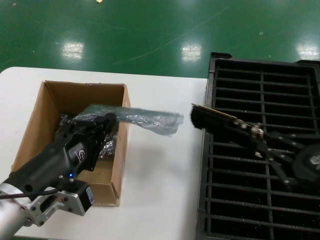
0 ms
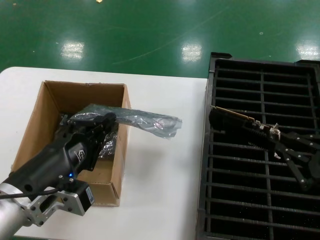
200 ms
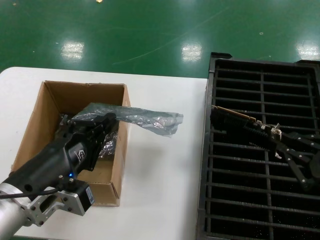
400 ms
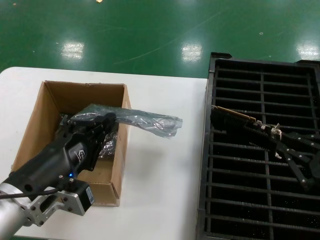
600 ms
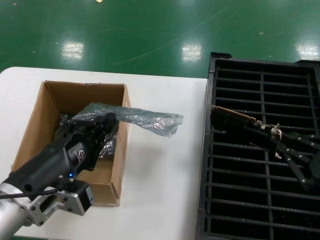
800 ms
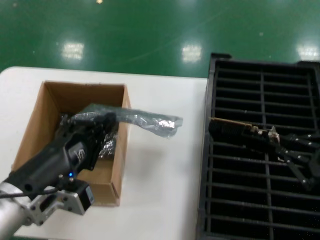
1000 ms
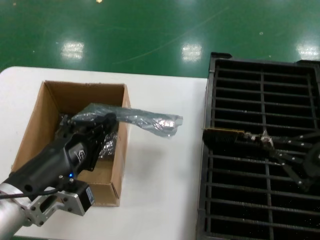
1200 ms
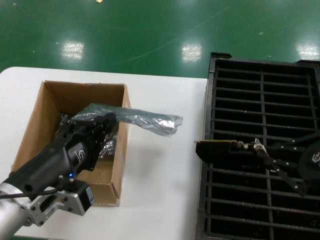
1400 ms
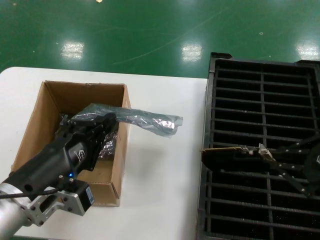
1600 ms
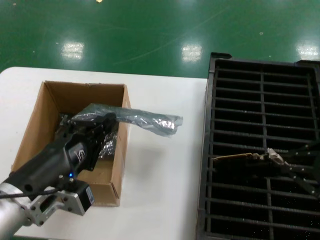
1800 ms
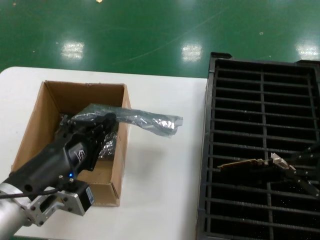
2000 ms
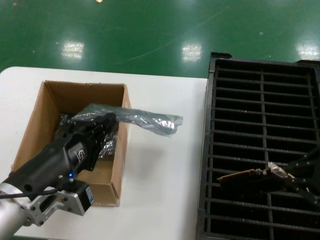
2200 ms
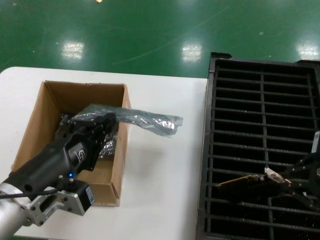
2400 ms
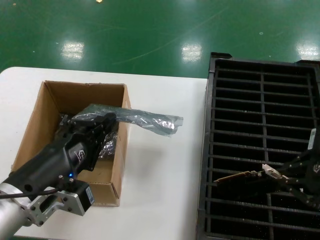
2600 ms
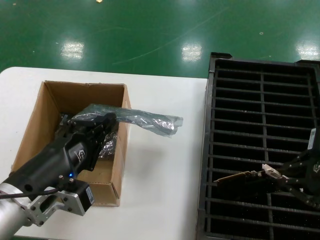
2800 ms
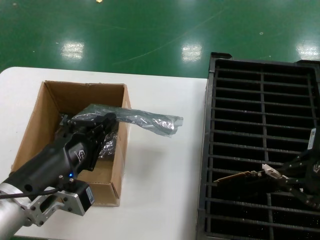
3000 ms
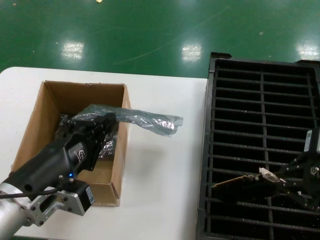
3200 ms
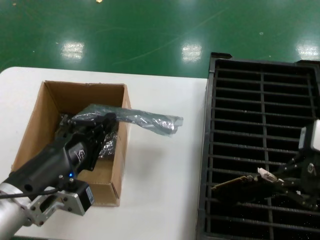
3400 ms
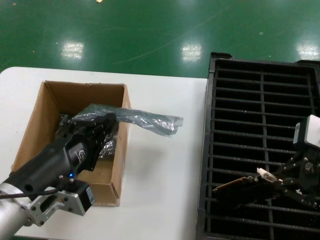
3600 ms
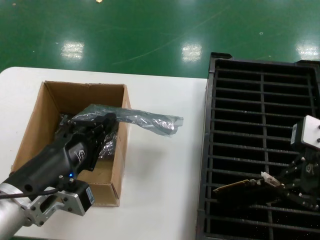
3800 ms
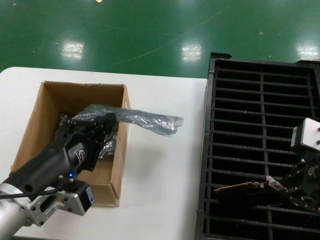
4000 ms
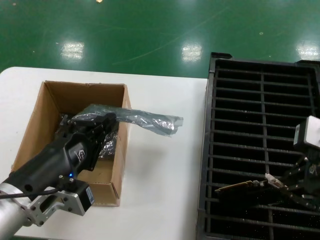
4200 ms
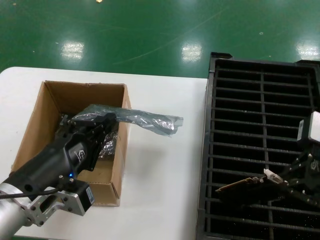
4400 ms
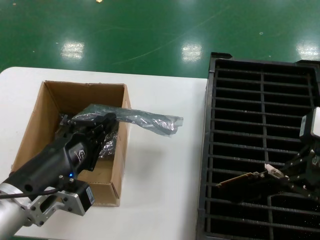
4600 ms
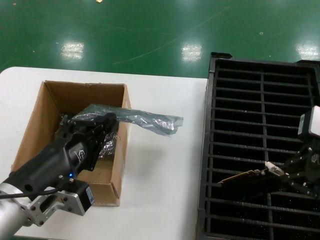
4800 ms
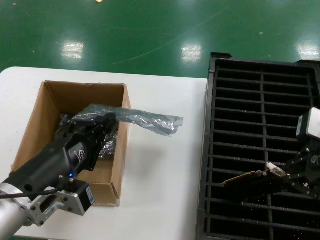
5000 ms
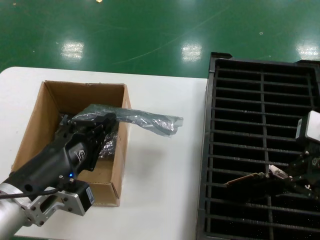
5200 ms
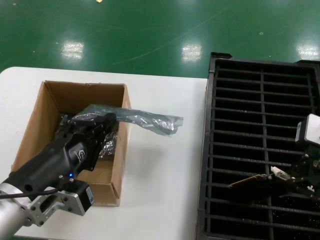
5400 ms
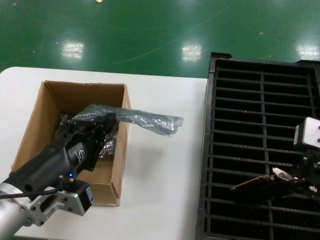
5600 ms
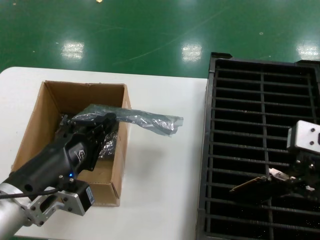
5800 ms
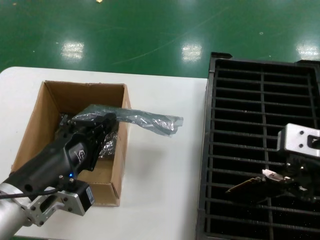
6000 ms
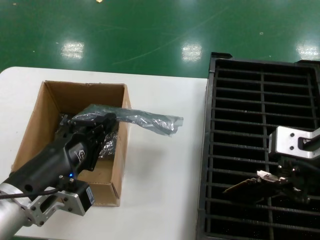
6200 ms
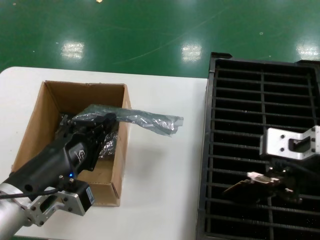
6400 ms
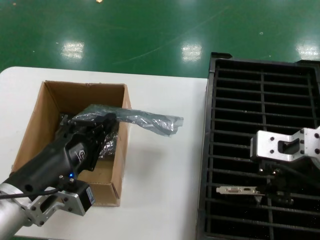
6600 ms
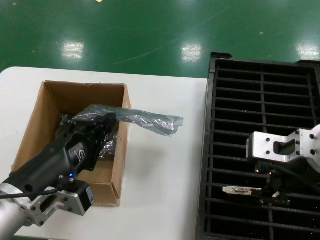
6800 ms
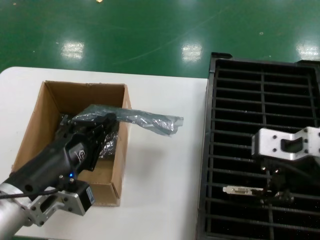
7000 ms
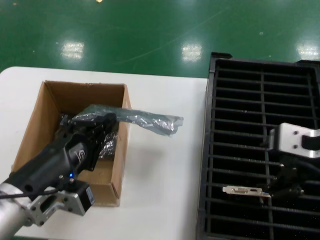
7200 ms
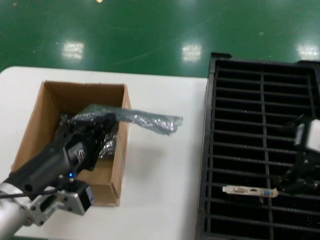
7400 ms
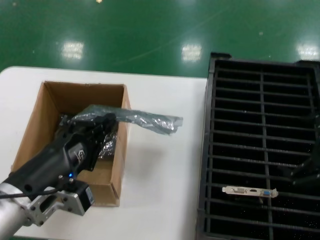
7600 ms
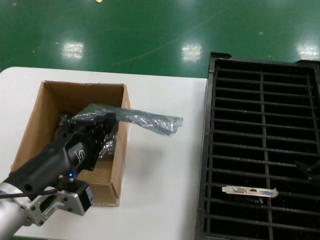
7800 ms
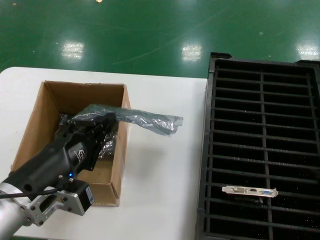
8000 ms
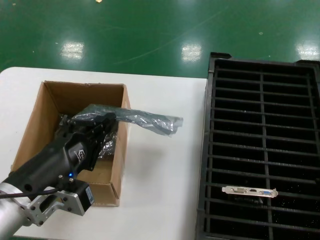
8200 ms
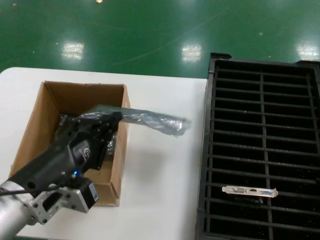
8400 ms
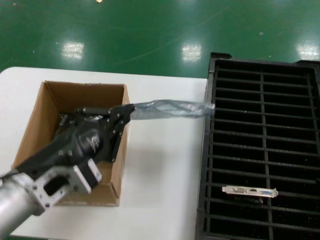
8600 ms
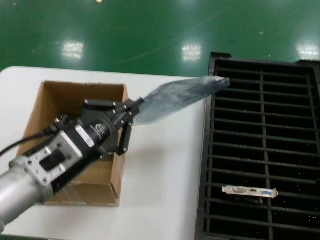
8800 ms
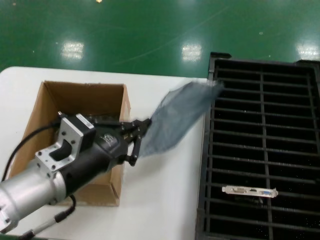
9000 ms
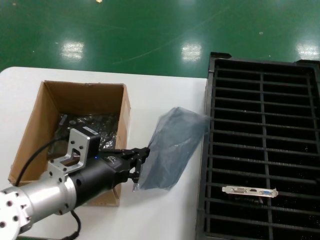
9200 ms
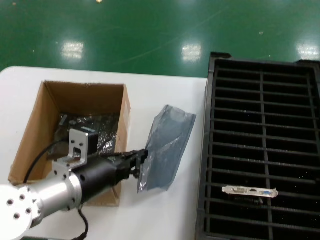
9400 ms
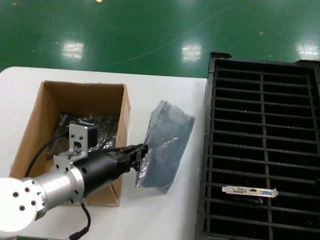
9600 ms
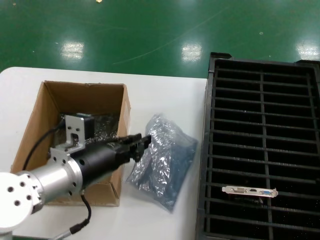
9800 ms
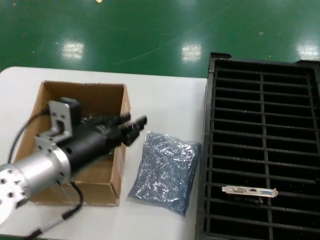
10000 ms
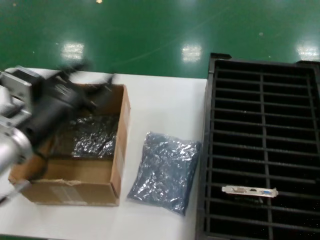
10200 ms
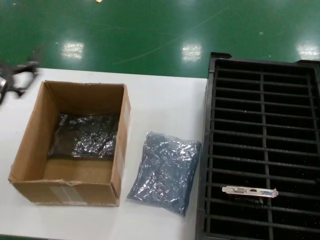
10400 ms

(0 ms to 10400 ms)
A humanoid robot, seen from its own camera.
Task of the whole recording: take out graphics card from box remove packaging put into black container.
Step, 0 ms - 7200 ms: Place the hard disk in the hard disk enclosure.
0 ms - 1400 ms: The right hand shifts approximately 5 cm upward.
1400 ms - 3000 ms: The right hand changes place by roughly 5 cm.
3000 ms - 6000 ms: There are only small adjustments of the hands.
6000 ms - 7400 ms: There are only small adjustments of the hands.
7400 ms - 9000 ms: The left hand shifts by some 5 cm. The right hand goes about 15 cm to the right and downward.
9000 ms - 10400 ms: The left hand travels to the left by some 5 cm.

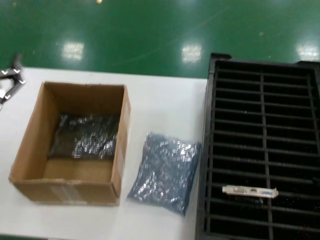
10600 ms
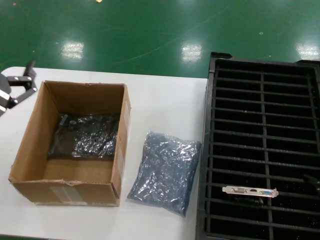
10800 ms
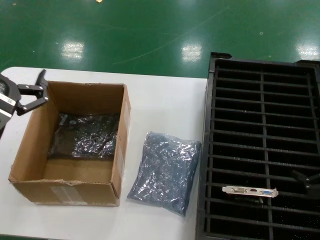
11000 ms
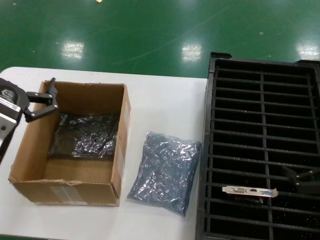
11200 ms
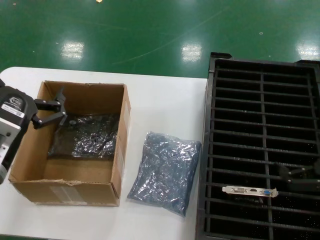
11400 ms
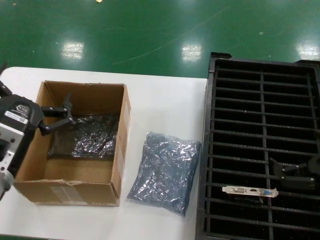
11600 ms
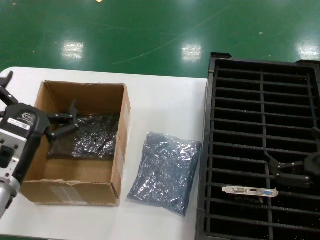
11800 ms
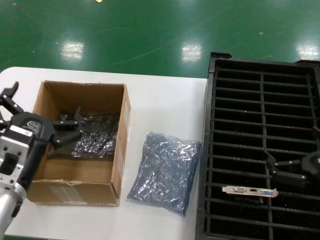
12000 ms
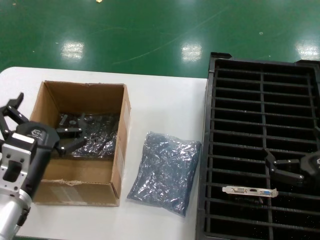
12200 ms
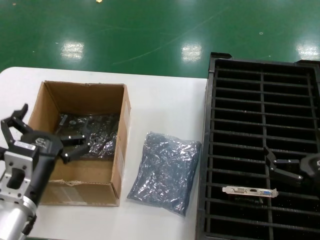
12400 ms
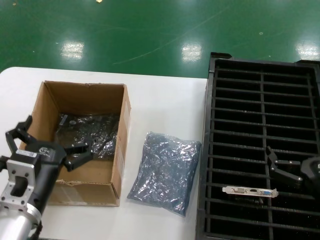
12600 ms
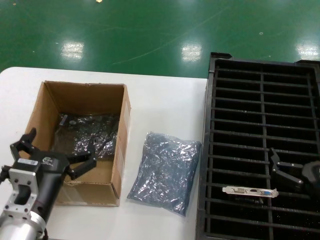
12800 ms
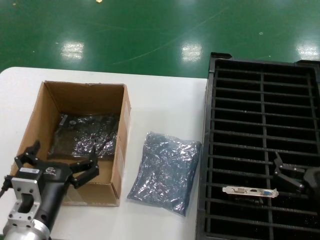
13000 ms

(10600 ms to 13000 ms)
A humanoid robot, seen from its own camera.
Task of the whole recording: take out graphics card from box remove packaging put into black container.
10600 ms - 11800 ms: The left hand is displaced downward by approximately 5 cm; the right hand travels downward and to the left by some 10 cm.
11800 ms - 13000 ms: The left hand heads downward, covering some 10 cm. The right hand moves downward and to the left, approximately 10 cm.
